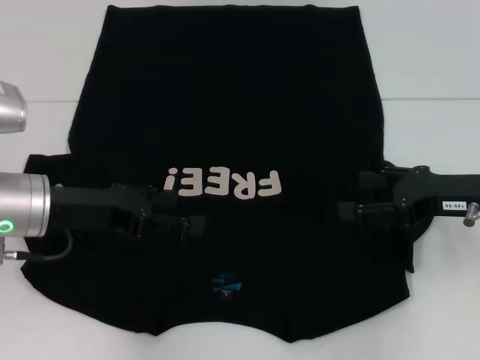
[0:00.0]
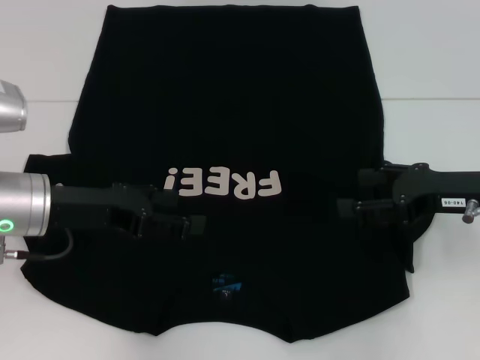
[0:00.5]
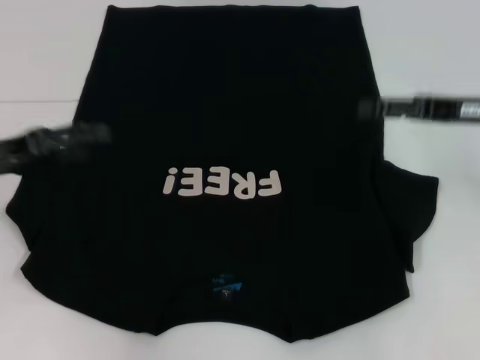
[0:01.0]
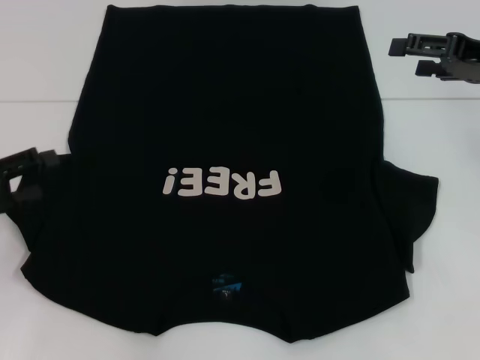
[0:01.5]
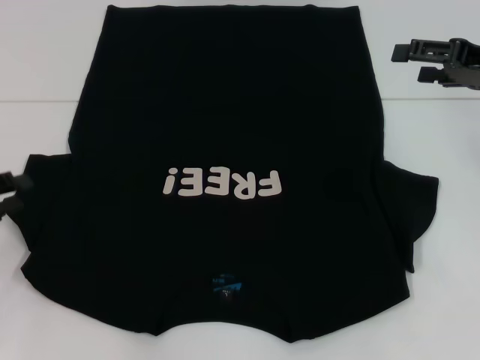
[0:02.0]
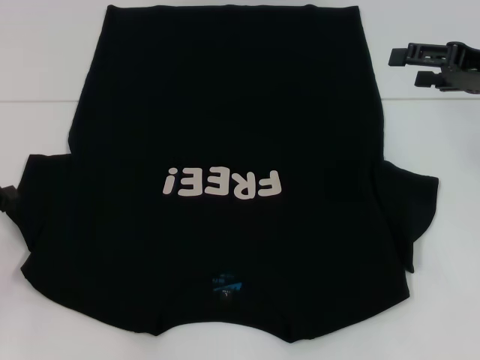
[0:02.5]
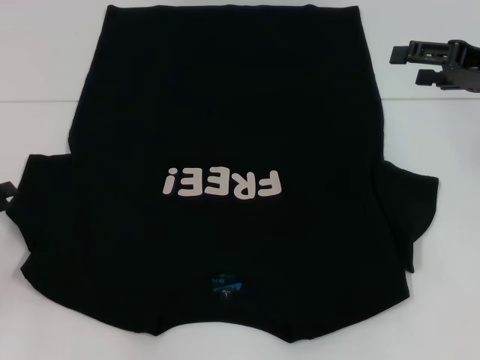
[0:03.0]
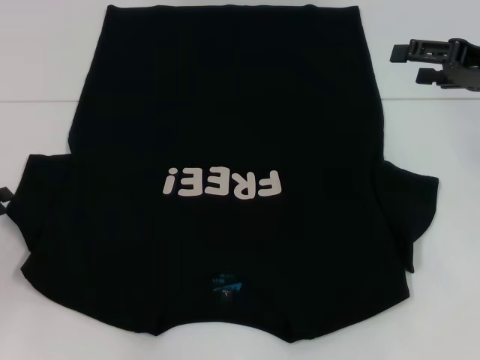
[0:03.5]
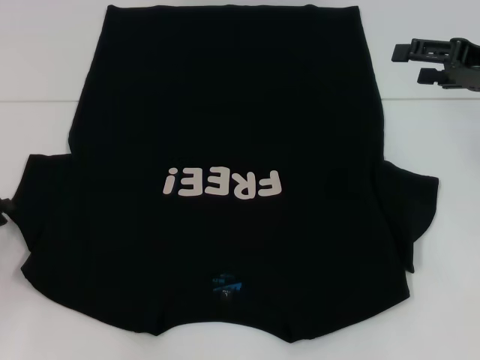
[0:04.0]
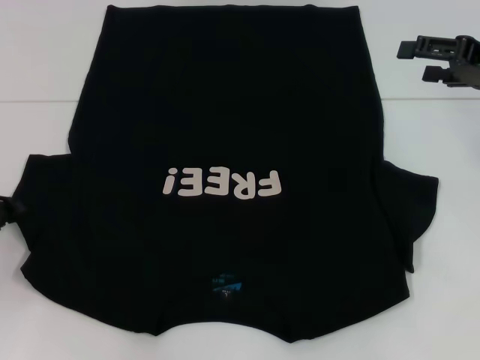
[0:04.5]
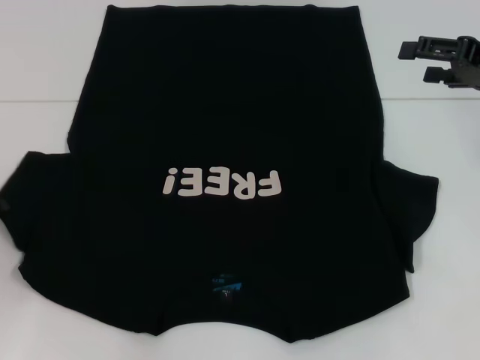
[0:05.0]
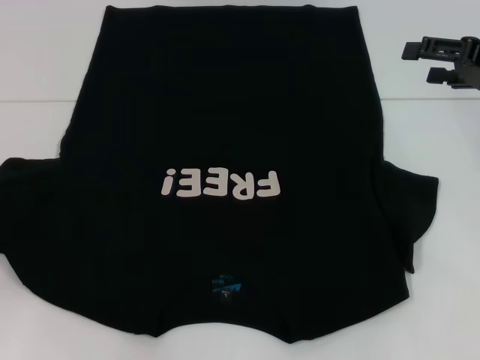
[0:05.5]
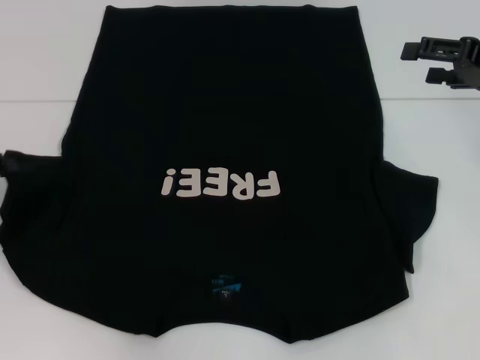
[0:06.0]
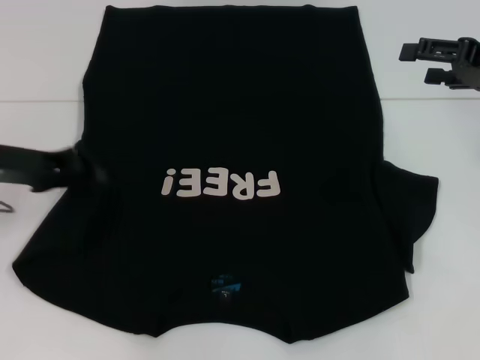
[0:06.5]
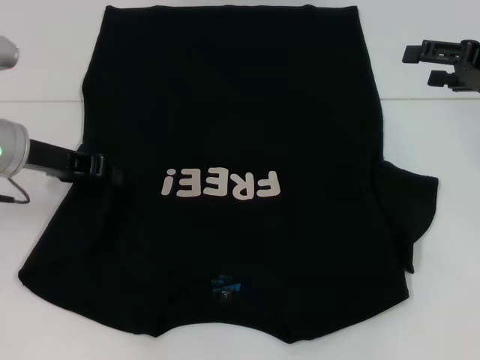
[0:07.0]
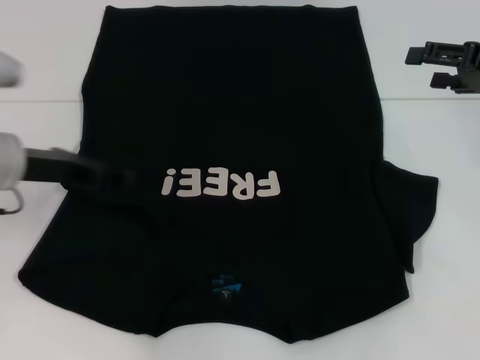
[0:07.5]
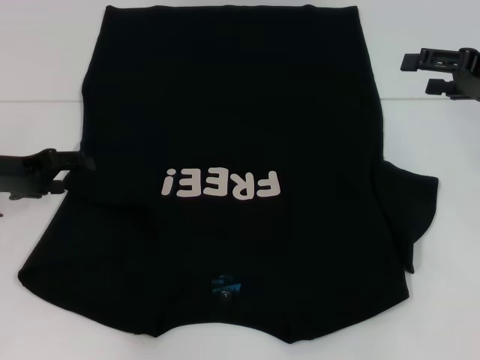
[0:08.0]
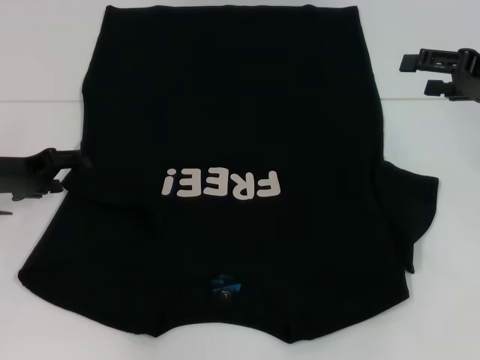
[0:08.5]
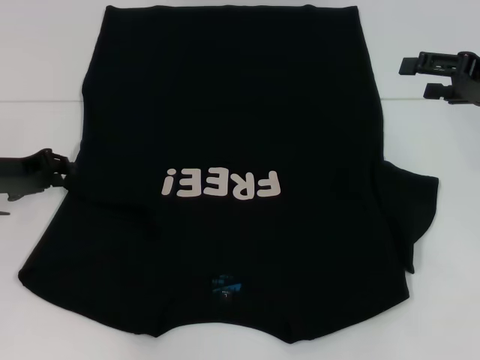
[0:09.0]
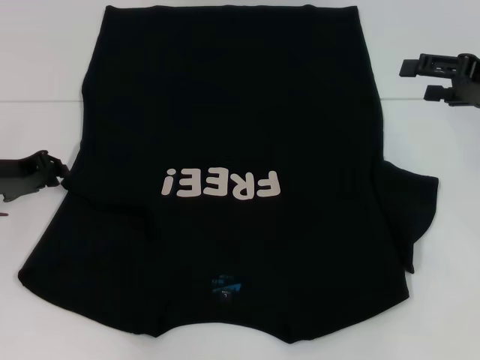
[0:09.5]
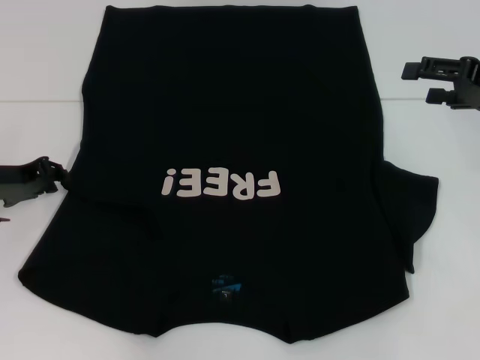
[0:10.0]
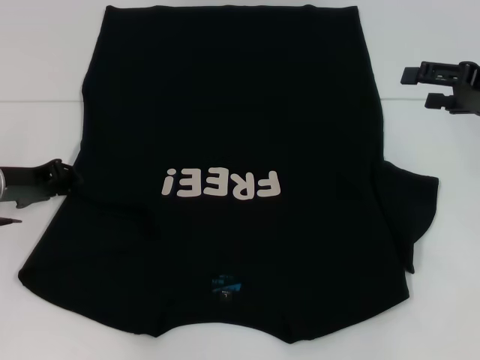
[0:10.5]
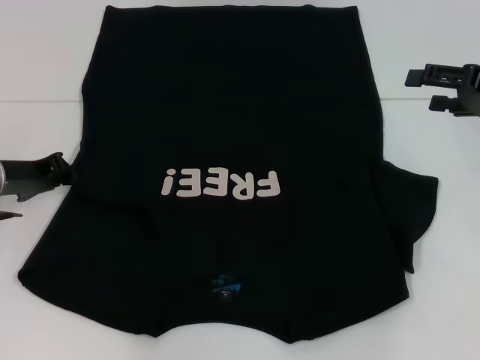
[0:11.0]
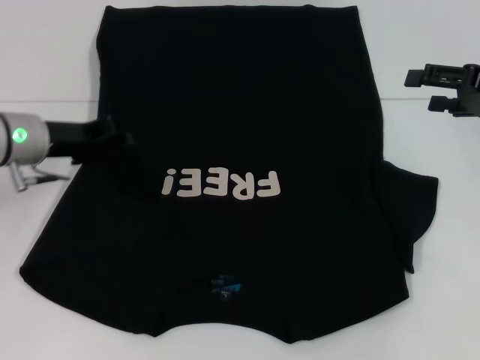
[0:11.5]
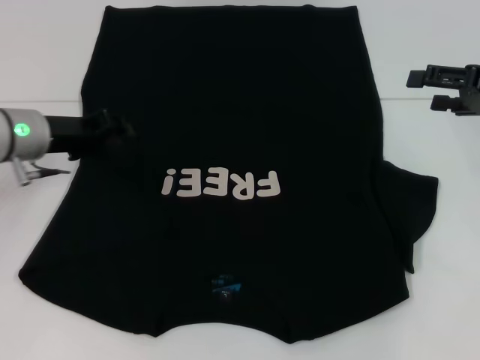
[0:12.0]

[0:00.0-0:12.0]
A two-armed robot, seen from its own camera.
Step, 0:00.0 to 0:11.5: Fold the bottom left sleeve with your left hand.
0:00.0 to 0:02.0: The right gripper is displaced upward and forward by approximately 10 cm. Meanwhile the left gripper travels to the left by approximately 15 cm.
0:04.0 to 0:06.0: The left gripper shifts approximately 5 cm upward.
0:06.0 to 0:08.0: The left gripper shifts some 5 cm to the right, and opens.
0:08.0 to 0:10.0: The left gripper closes up.
0:10.0 to 0:12.0: The left gripper goes roughly 5 cm to the right.

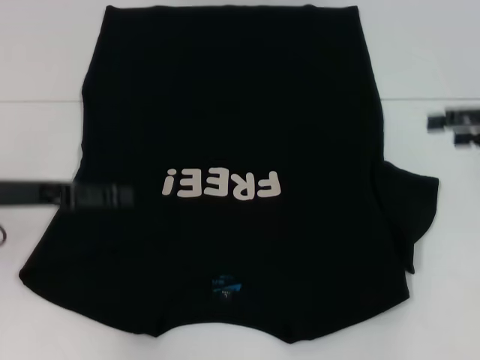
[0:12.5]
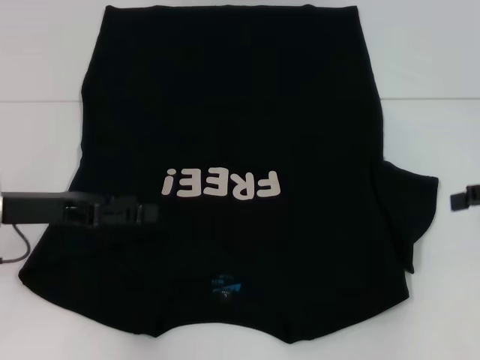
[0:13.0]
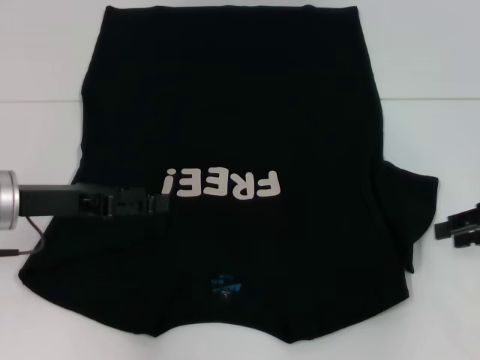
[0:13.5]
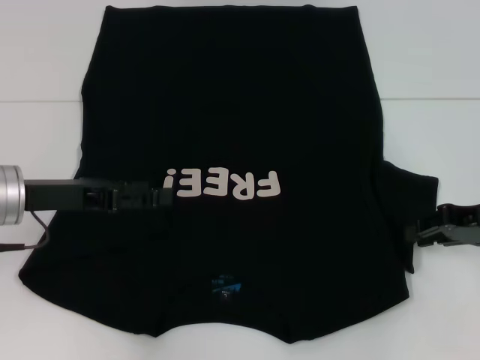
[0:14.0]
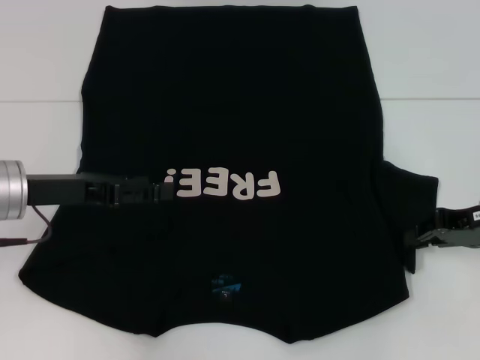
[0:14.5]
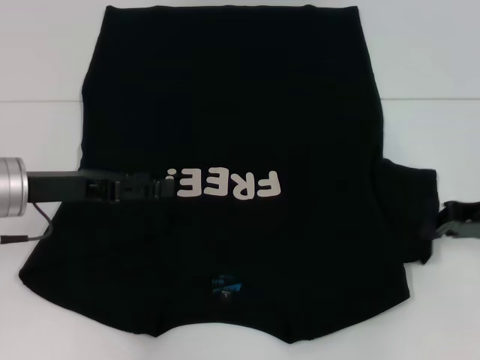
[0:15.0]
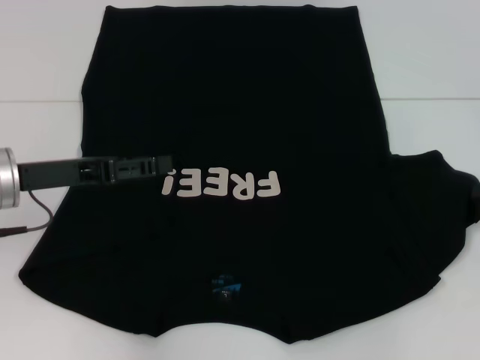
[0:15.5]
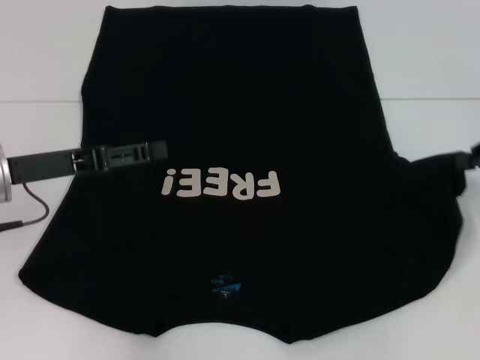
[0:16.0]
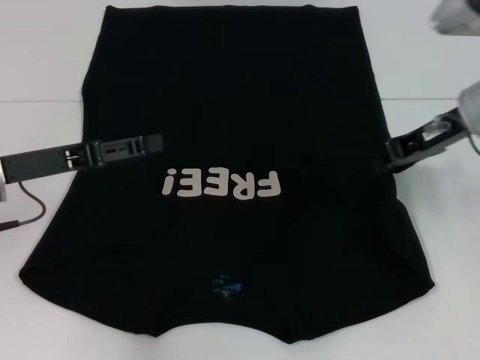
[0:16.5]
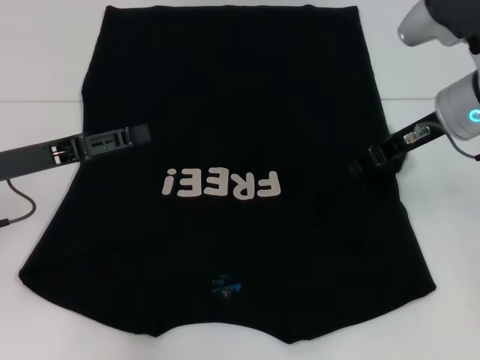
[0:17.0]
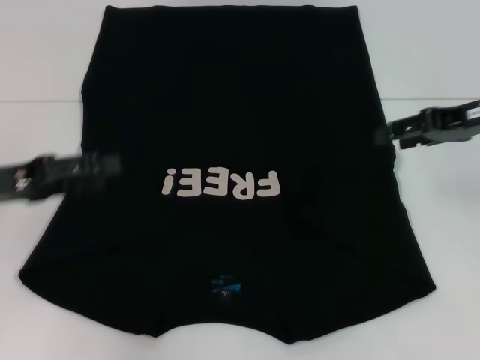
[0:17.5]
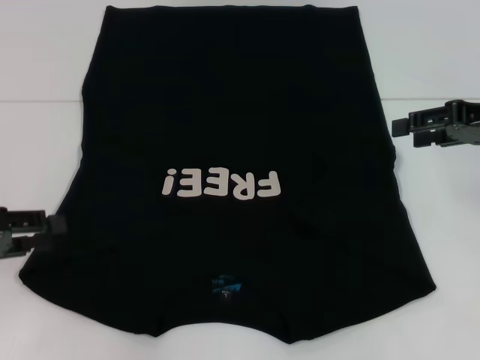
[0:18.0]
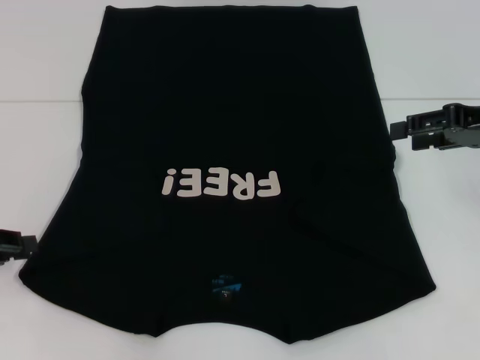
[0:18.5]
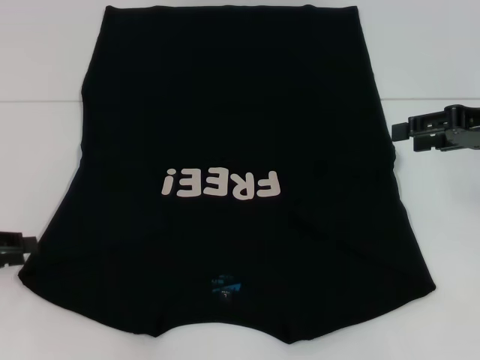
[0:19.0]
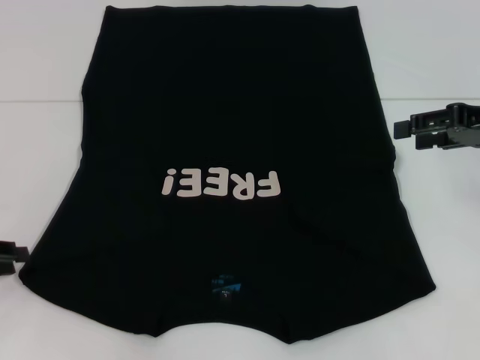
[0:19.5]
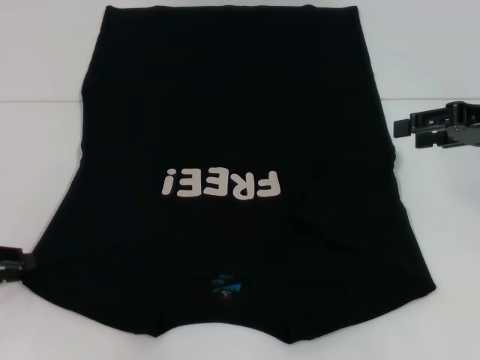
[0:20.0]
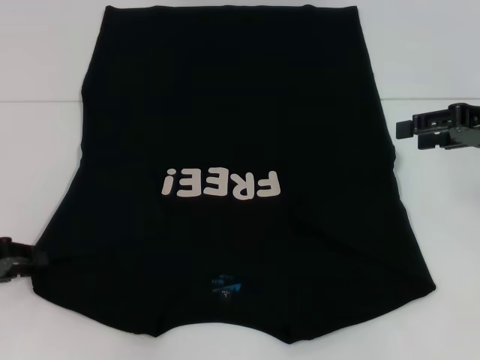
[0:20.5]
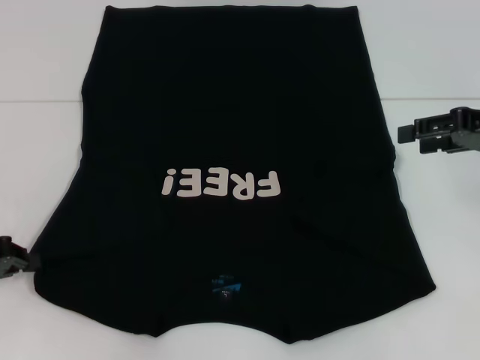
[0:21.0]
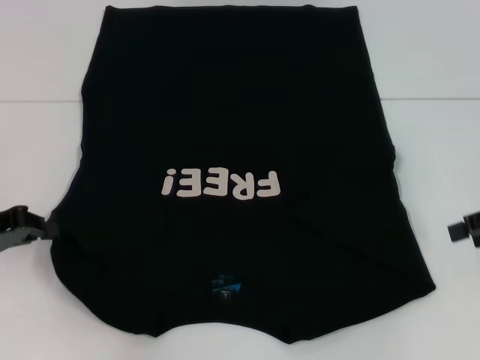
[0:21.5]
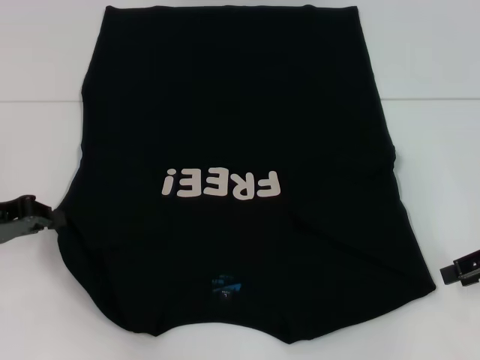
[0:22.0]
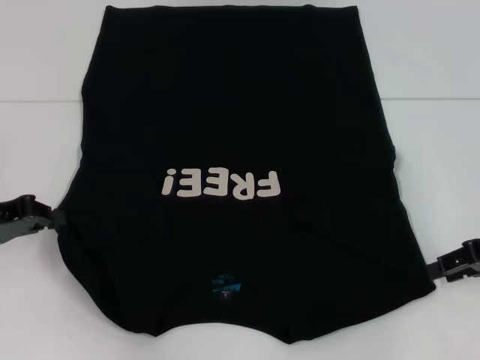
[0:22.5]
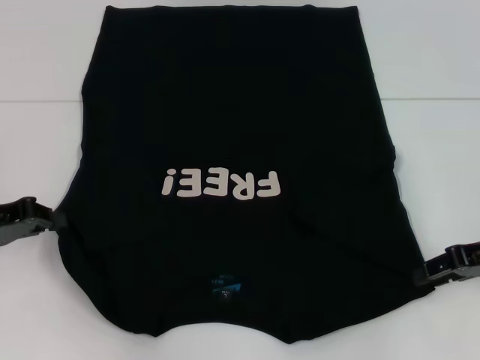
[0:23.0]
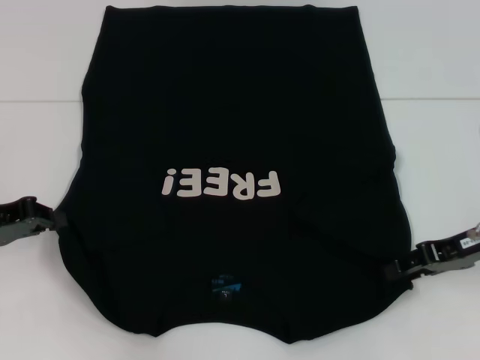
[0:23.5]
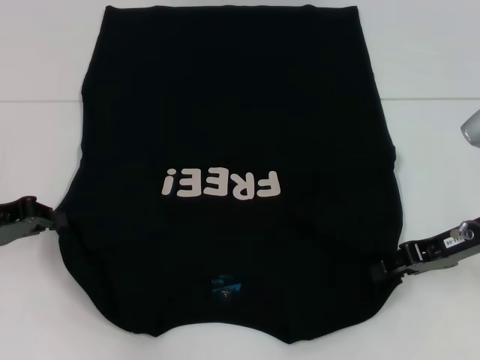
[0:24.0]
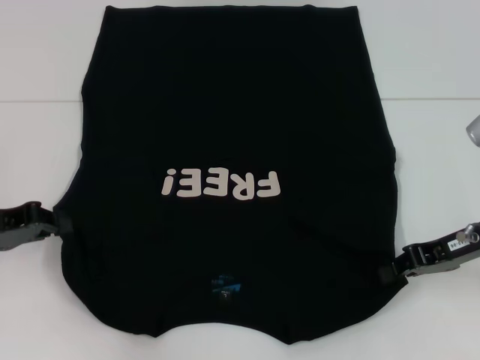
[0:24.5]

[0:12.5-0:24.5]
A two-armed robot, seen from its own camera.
Step, 0:12.5 to 0:17.0: Fold the bottom right sleeve with your right hand.
Step, 0:17.5 to 0:21.0: Grab the bottom left corner with your left hand.
0:12.5 to 0:14.5: The right gripper moves downward, about 10 cm, and closes.
0:14.5 to 0:16.5: The right gripper goes about 15 cm upward, to the left and forward.
0:16.5 to 0:18.5: The right gripper moves to the right, about 10 cm, and opens its fingers; the left gripper is displaced to the left and backward by about 10 cm, and closes its fingers.
0:18.5 to 0:20.5: The grippers make only small movements.
0:20.5 to 0:22.5: The right gripper moves downward and backward, about 10 cm.
0:22.5 to 0:24.5: The right gripper goes about 5 cm to the left, and closes up.

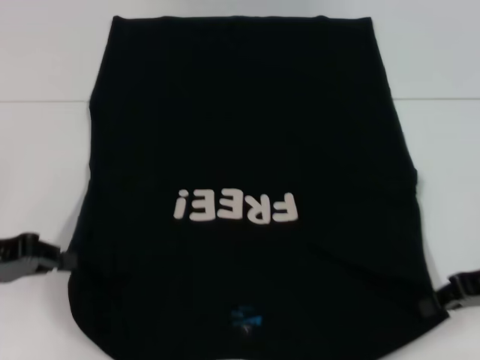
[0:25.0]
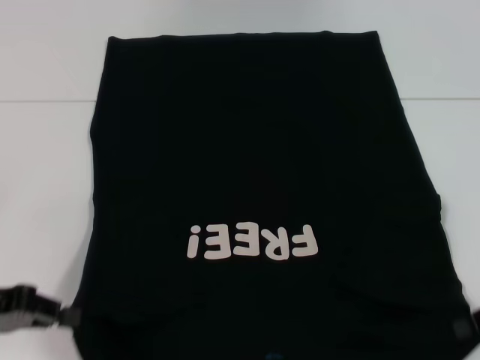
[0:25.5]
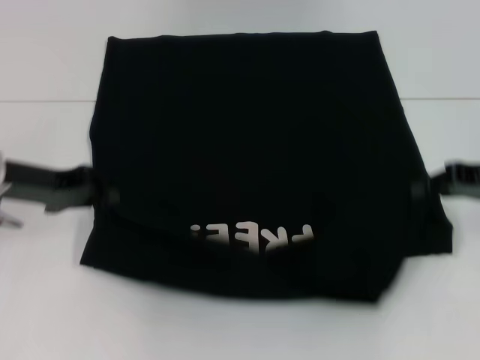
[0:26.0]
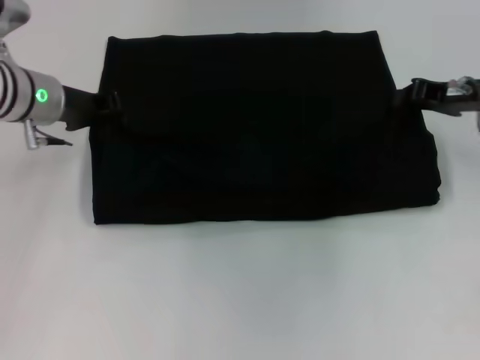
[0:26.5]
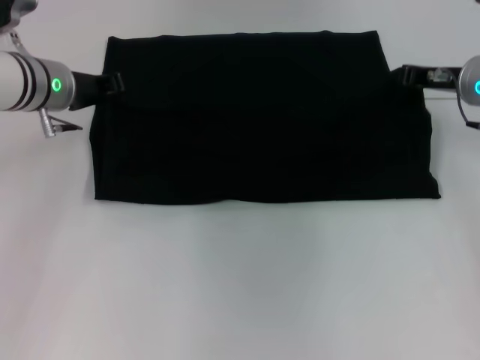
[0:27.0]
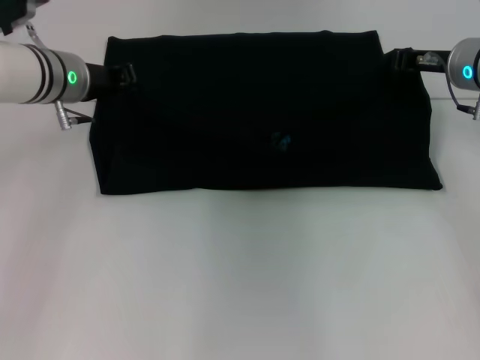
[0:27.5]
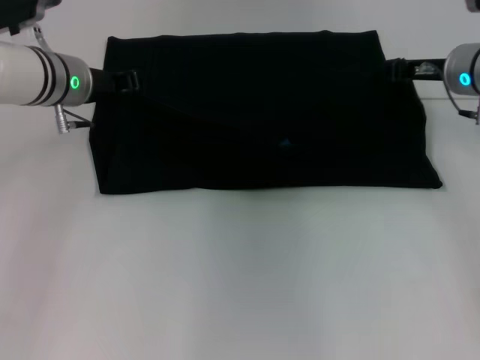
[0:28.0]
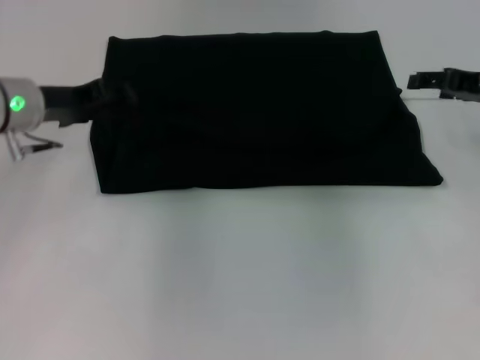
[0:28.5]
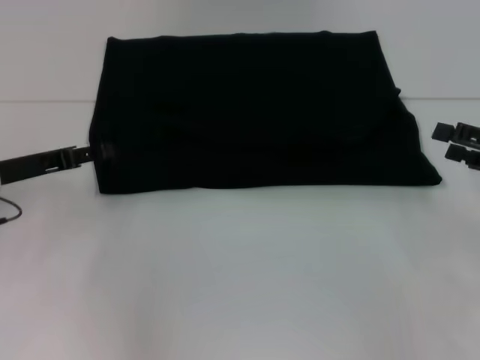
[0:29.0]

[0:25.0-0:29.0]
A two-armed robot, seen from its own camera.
Step, 0:25.0 to 0:28.0: Fold the clothes with your left hand.
Step, 0:25.0 to 0:28.0: Fold the clothes with your right hand.
0:25.0 to 0:27.0: The left gripper heads forward and to the right, covering approximately 20 cm. The right gripper heads forward and to the left, covering some 15 cm.
0:27.0 to 0:29.0: The right gripper travels backward and to the right by roughly 15 cm, and opens; the left gripper shifts approximately 15 cm backward, to the left and downward, and opens its fingers.
